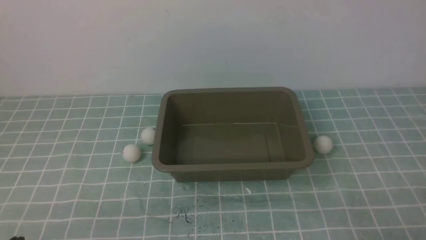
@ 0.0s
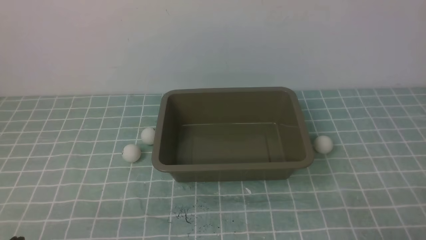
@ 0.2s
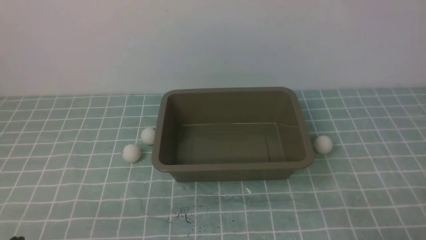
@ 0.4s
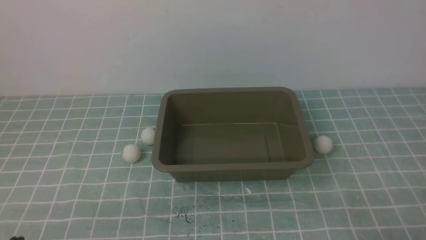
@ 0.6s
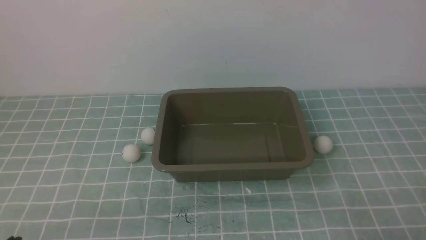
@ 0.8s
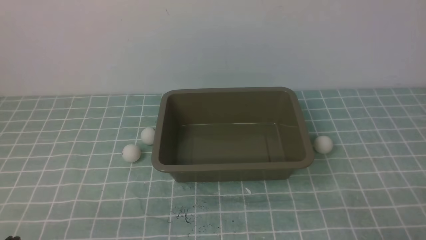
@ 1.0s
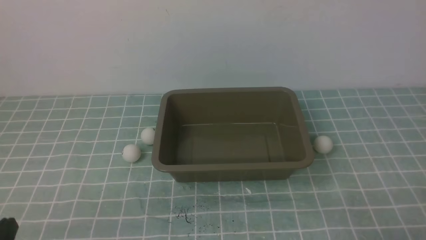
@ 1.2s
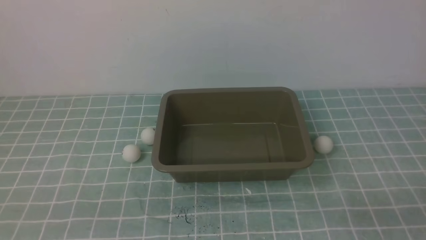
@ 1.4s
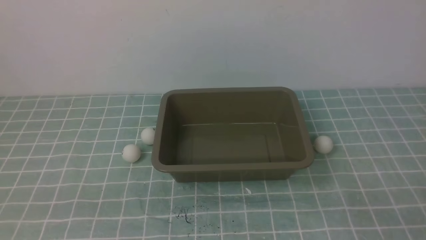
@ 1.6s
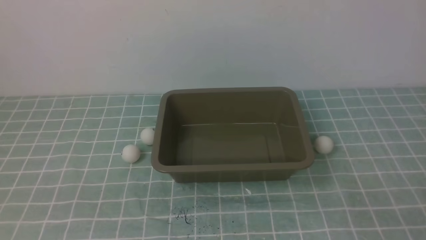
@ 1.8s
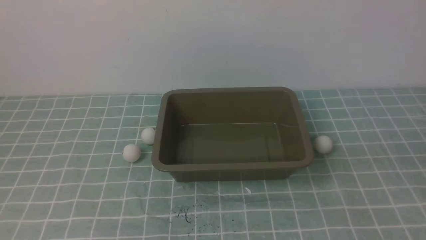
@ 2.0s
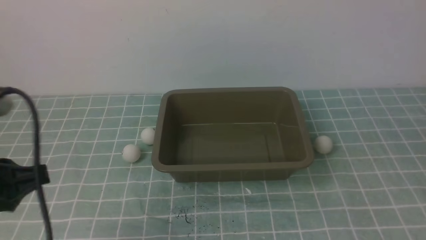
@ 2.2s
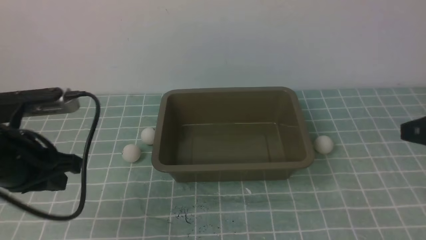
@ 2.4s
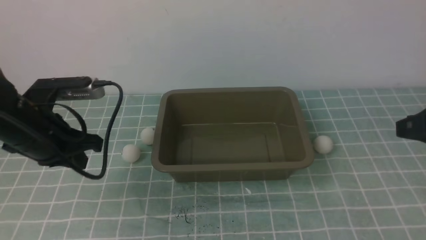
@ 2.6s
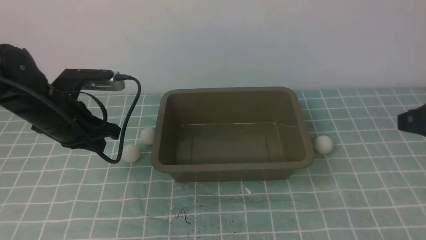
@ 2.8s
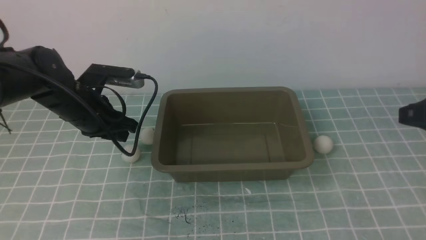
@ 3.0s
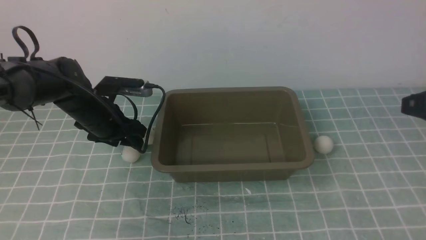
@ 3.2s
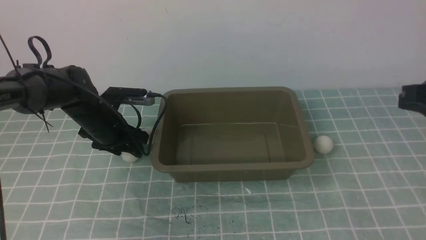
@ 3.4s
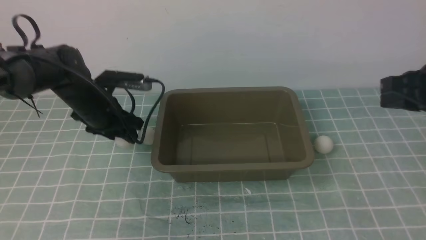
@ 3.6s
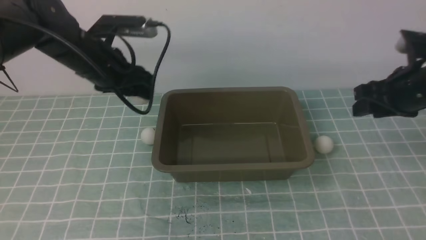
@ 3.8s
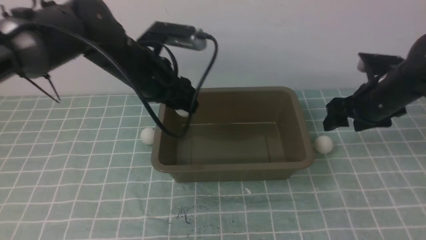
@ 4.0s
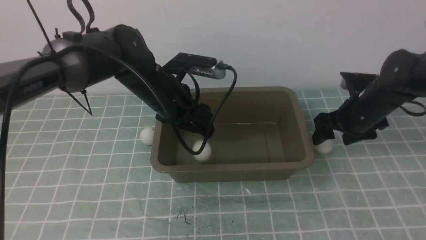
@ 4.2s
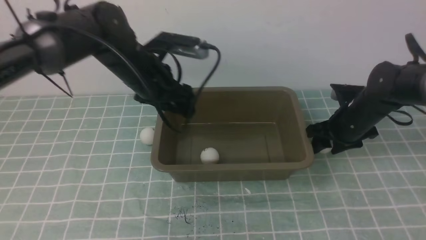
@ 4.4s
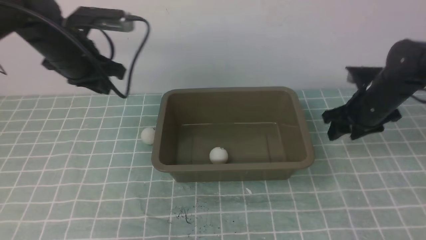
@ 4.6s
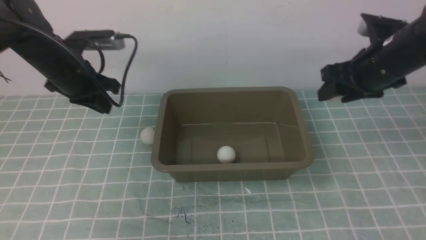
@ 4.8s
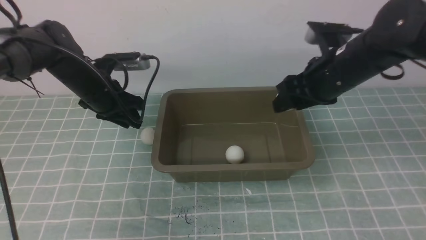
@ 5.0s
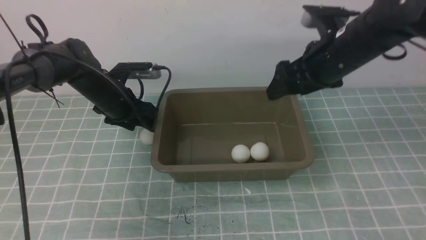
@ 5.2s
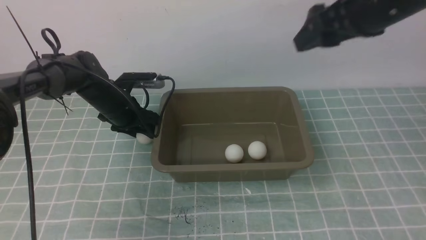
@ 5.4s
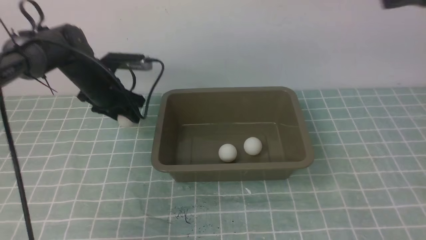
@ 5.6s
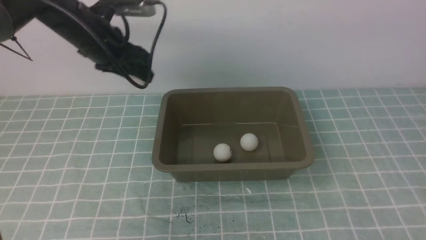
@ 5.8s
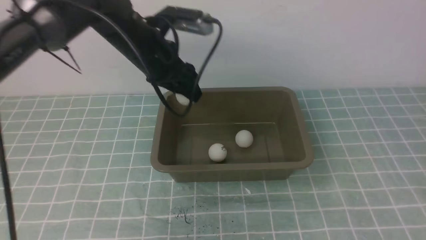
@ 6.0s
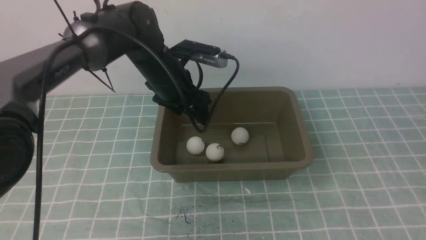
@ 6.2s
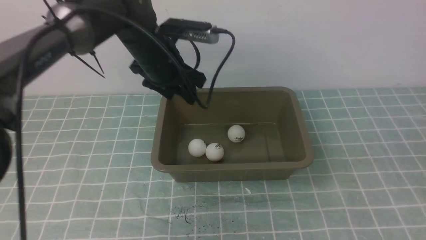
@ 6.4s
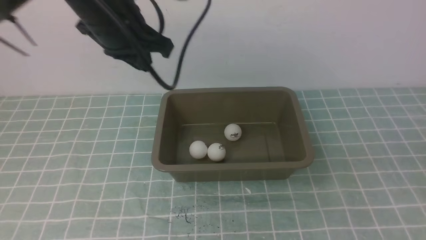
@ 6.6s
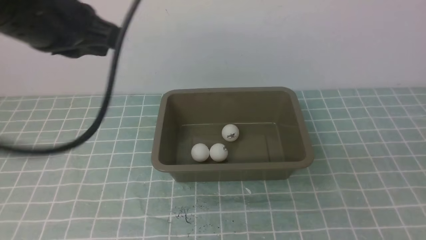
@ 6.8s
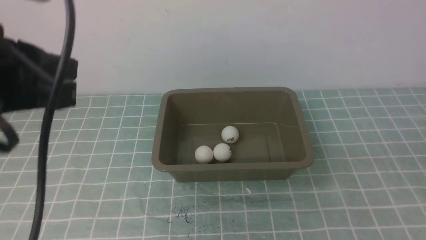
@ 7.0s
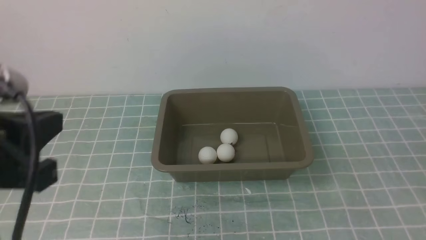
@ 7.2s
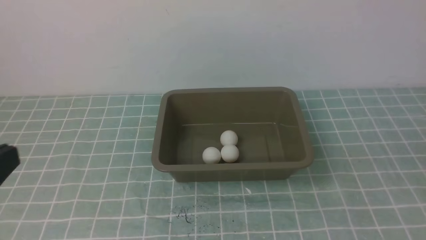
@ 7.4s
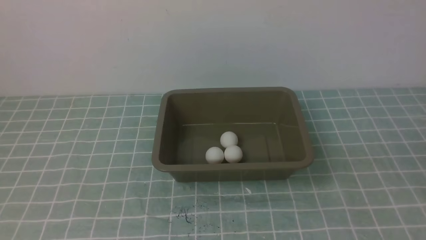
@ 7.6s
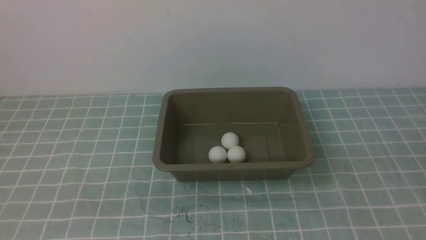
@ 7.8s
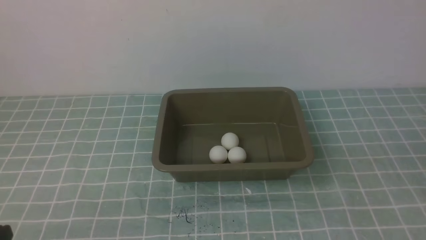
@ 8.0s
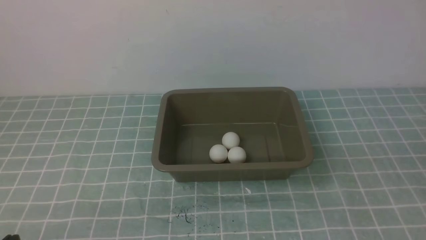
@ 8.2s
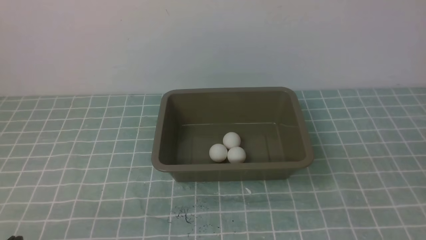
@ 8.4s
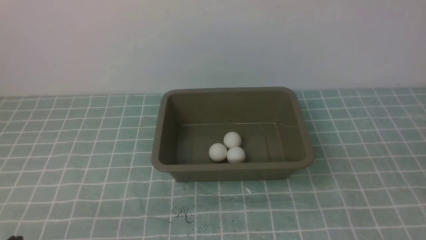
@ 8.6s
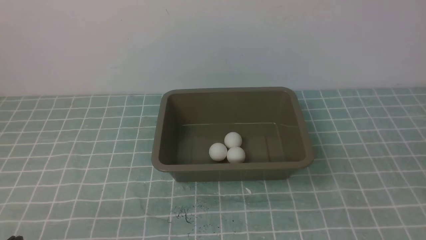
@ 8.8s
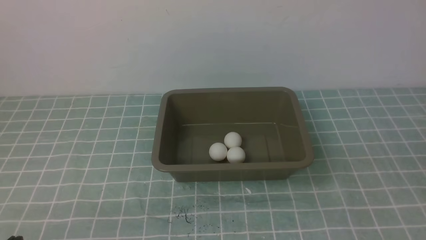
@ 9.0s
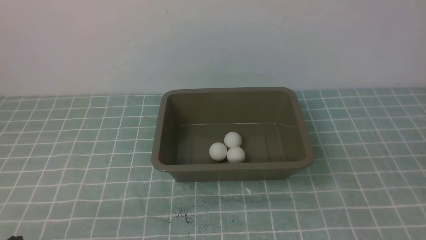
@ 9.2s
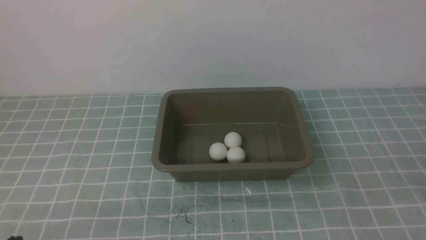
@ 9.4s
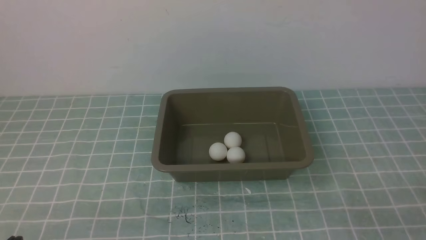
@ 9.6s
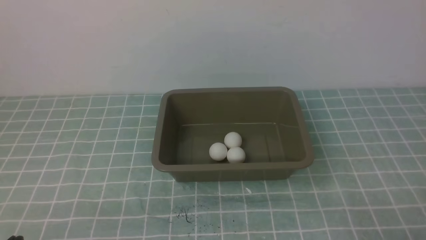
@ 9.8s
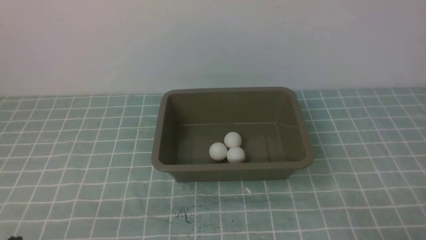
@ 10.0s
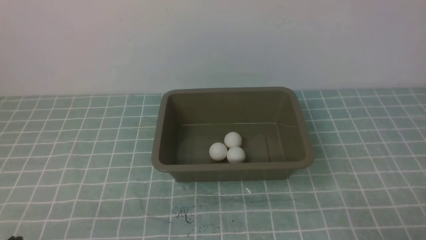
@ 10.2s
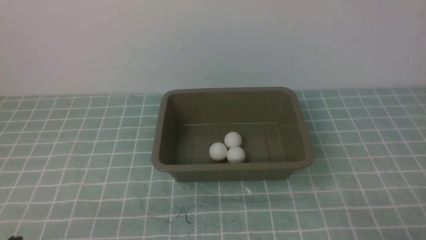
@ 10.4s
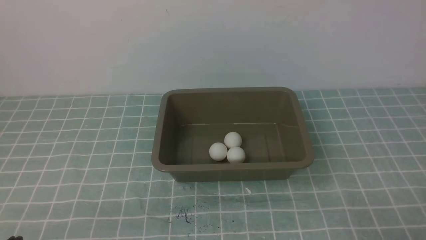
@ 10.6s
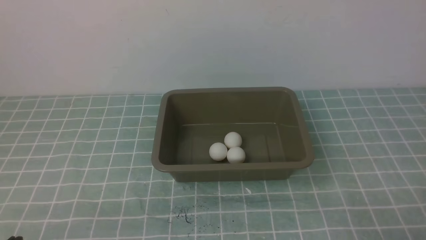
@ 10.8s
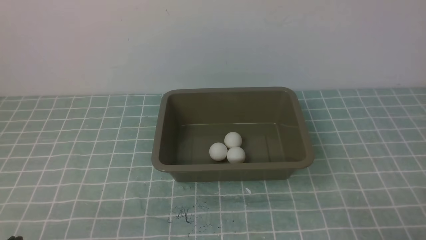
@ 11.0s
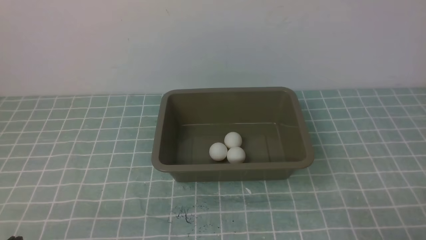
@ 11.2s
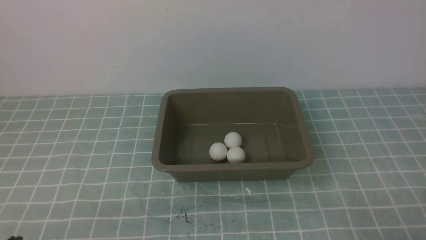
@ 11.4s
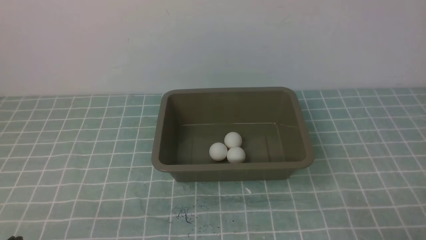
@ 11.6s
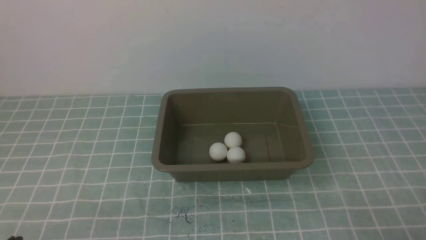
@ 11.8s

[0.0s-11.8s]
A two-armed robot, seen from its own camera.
Step, 0.0s to 3.6s: use the left arm to clamp the table tennis ball closest to it.
Step, 3.8s to 4.0s: use the left arm to put the table tennis ball into the box.
Step, 4.4s to 4.6s: use the right arm to clamp the table tennis ball closest to it.
Step, 5.4s to 5.6s: use the left arm to clamp the table tennis ball closest to it.
Step, 5.8s to 6.0s: use the left arm to put the table tennis ball into the box.
1.4s to 3.0s: The right gripper goes approximately 20 cm forward and upward, while the left gripper heads forward, covering some 30 cm.
3.0s to 4.4s: The right gripper shifts about 25 cm forward and downward, and opens its fingers. Meanwhile the left gripper moves to the right, roughly 10 cm, and opens up.
4.4s to 6.0s: The right gripper goes some 40 cm backward and upward, and closes its fingers, while the left gripper goes downward and returns, approximately 10 cm each way, and closes, then reopens.
6.0s to 7.4s: The right gripper heads downward and backward, covering about 15 cm; the left gripper travels backward by about 35 cm, and closes its fingers.
7.4s to 8.8s: The left gripper is displaced downward by about 20 cm.
10.4s to 11.8s: The two grippers keep their place.

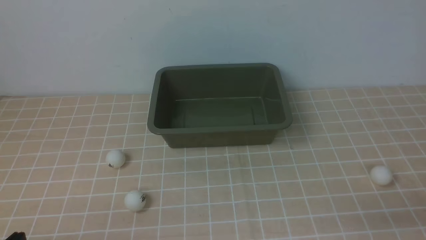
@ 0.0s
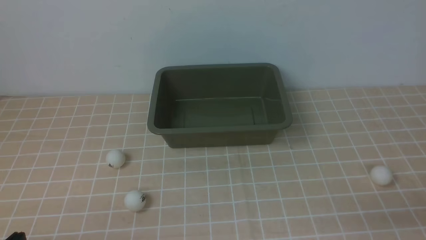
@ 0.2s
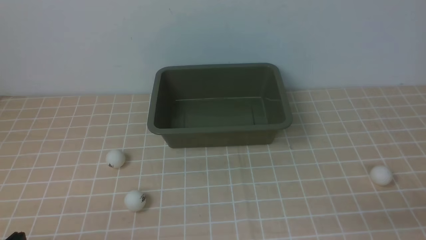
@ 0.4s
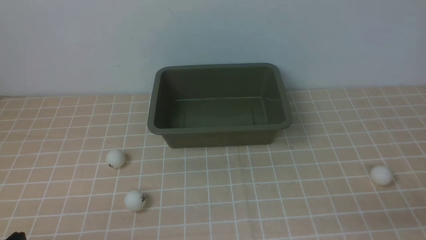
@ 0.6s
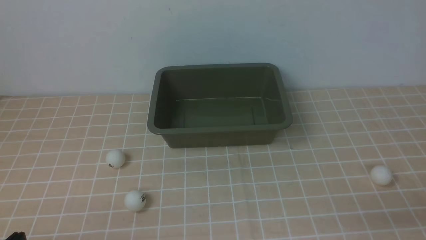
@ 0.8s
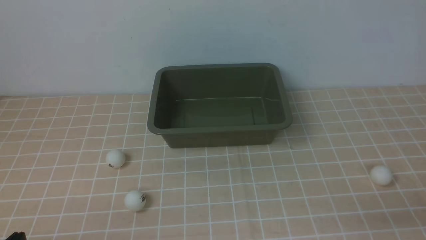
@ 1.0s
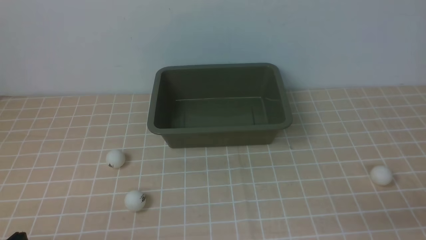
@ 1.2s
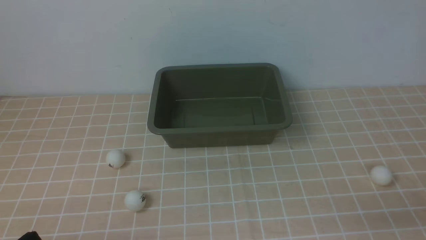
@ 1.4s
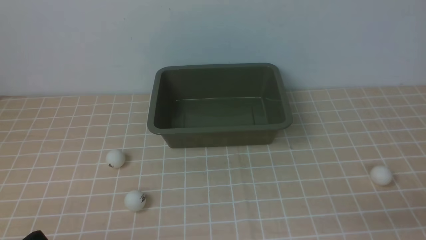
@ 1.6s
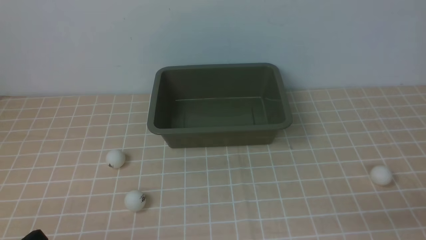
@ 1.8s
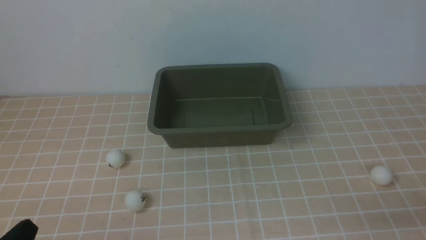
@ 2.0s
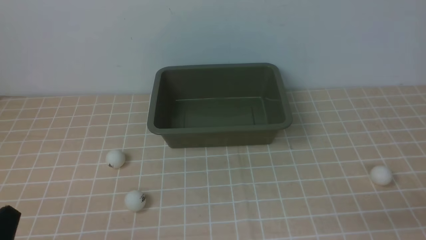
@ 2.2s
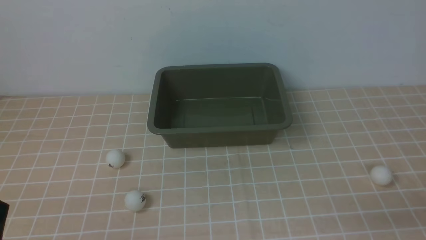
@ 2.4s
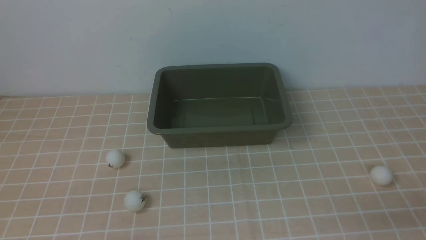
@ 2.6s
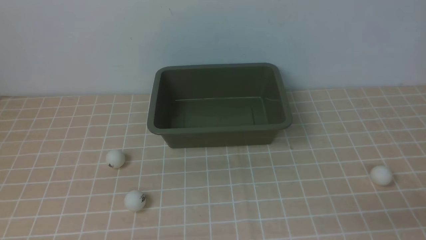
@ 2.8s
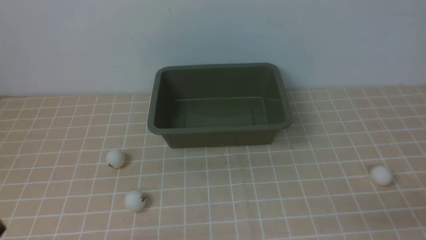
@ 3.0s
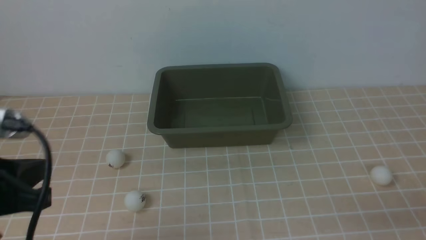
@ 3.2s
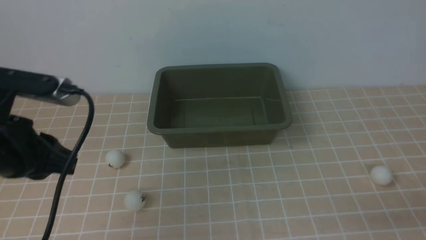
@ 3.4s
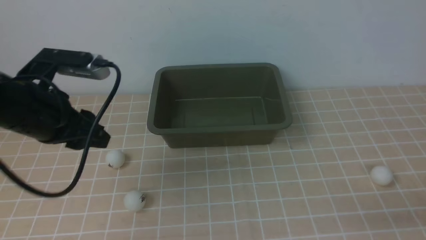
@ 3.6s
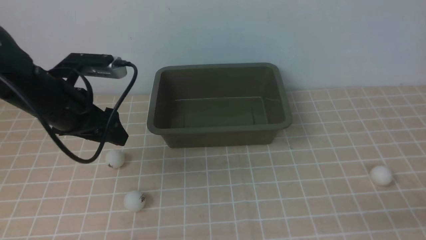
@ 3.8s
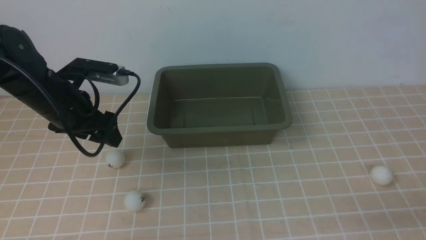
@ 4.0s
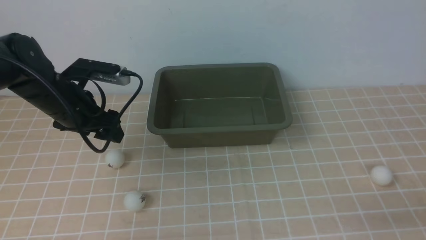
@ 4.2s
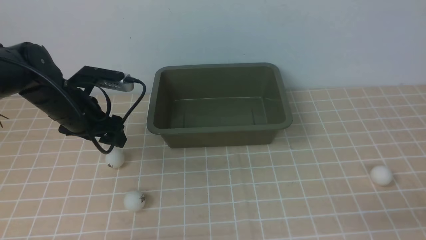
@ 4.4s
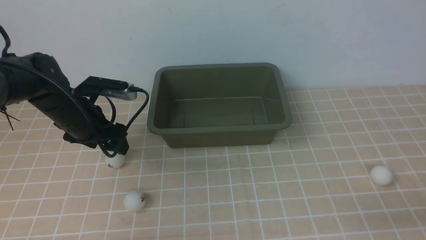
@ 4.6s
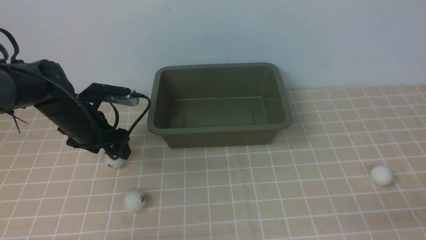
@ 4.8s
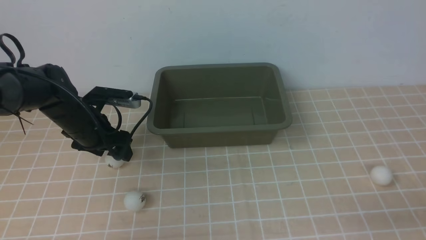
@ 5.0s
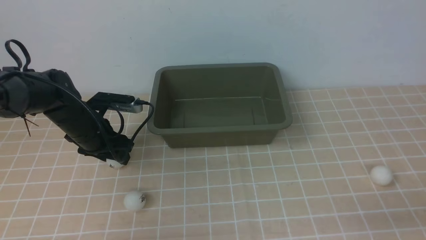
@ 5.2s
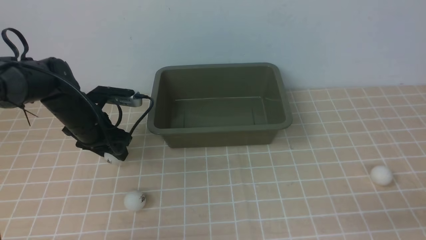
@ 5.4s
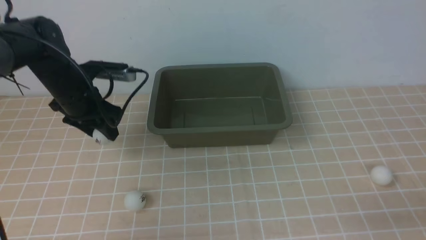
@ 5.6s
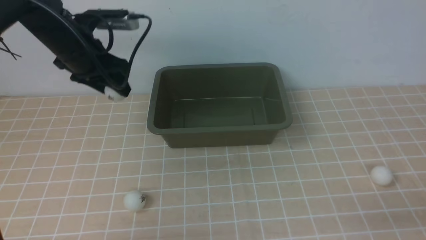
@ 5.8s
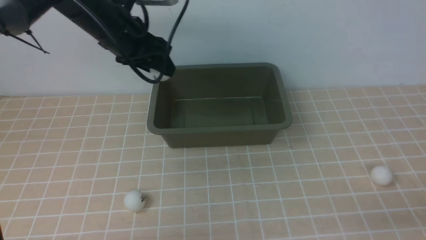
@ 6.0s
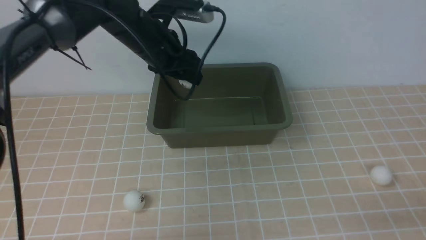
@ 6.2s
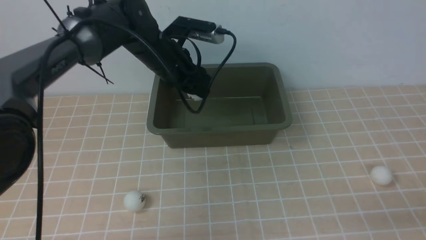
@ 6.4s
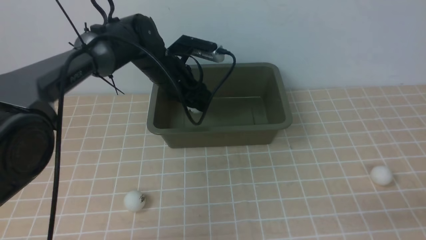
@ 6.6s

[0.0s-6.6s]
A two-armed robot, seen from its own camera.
Step, 0.0s to 5.6s: use the left arm to clamp the table tennis ball closest to it.
1.6s to 3.2s: The left gripper heads upward and forward, covering roughly 15 cm.
3.2s to 5.0s: The left gripper travels forward and downward by about 30 cm, and opens its fingers.
5.0s to 6.6s: The left gripper shifts about 15 cm to the right and forward.
